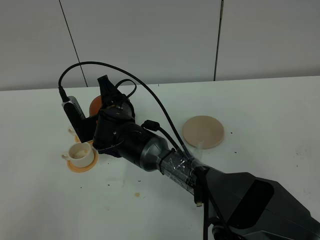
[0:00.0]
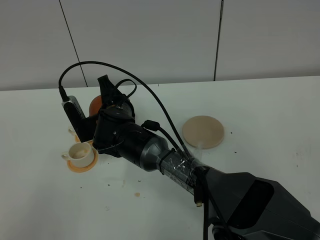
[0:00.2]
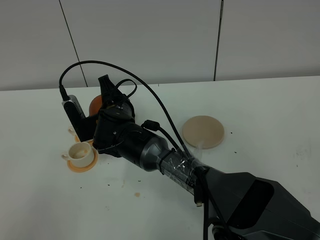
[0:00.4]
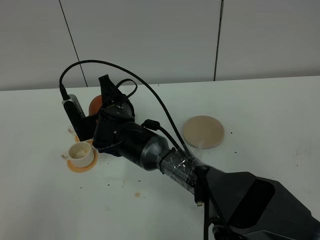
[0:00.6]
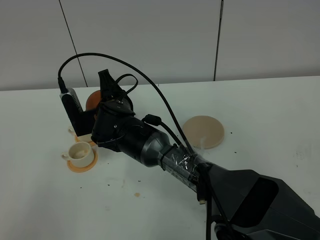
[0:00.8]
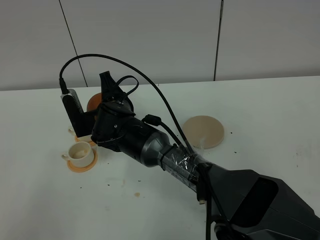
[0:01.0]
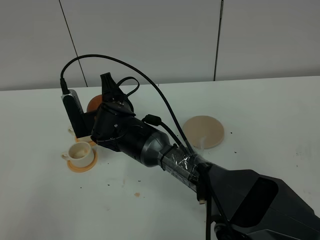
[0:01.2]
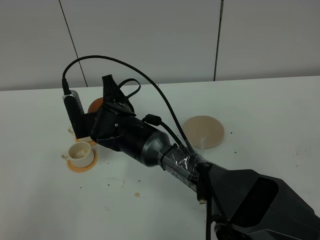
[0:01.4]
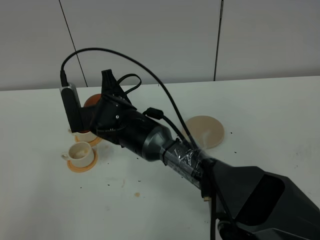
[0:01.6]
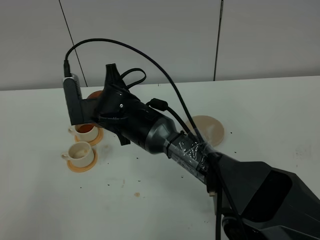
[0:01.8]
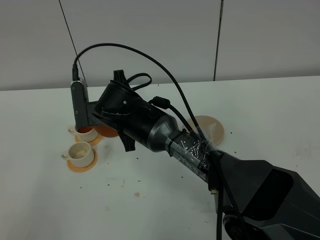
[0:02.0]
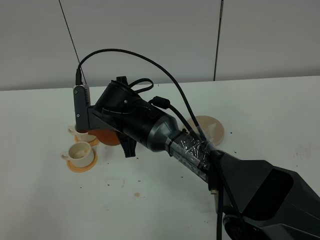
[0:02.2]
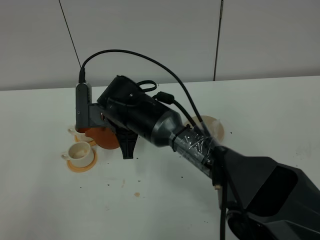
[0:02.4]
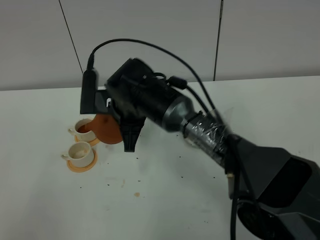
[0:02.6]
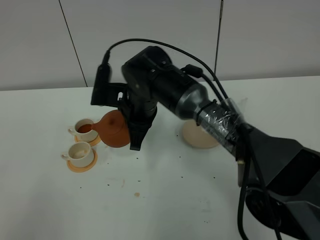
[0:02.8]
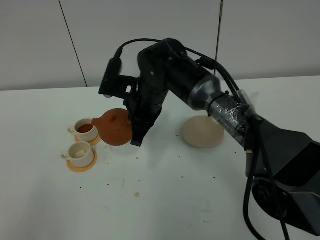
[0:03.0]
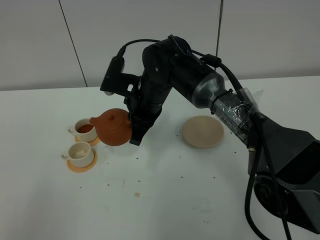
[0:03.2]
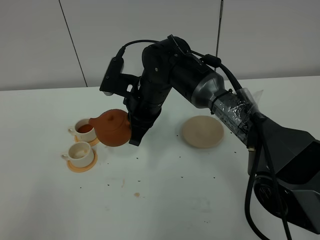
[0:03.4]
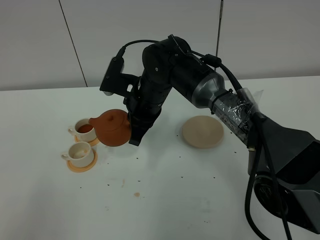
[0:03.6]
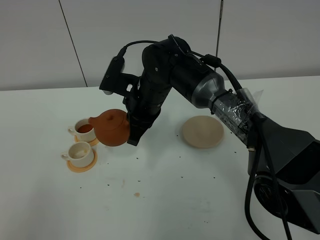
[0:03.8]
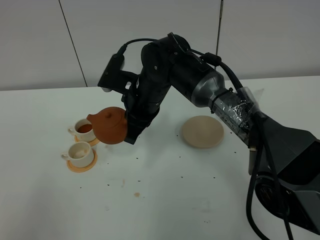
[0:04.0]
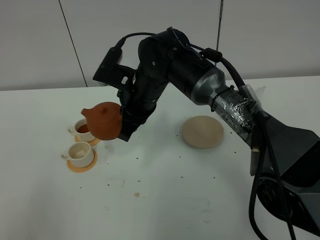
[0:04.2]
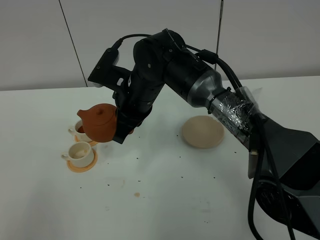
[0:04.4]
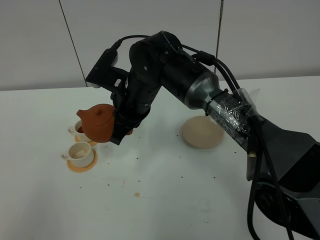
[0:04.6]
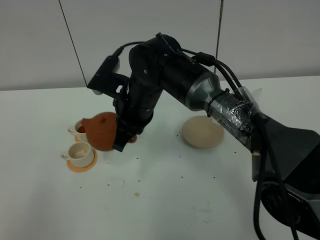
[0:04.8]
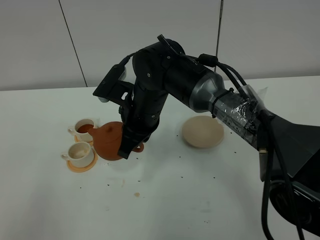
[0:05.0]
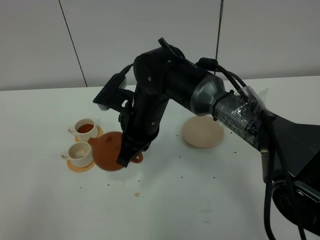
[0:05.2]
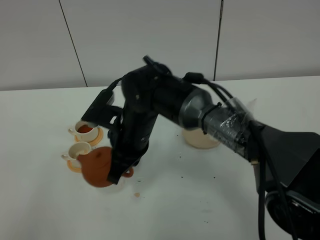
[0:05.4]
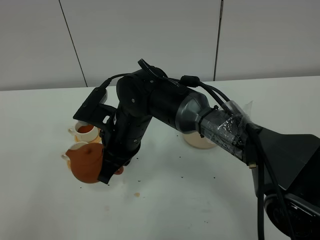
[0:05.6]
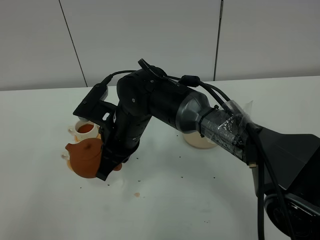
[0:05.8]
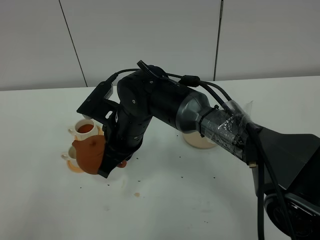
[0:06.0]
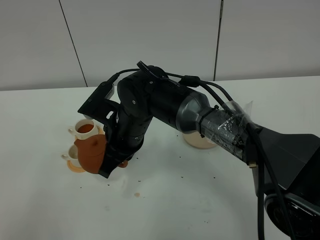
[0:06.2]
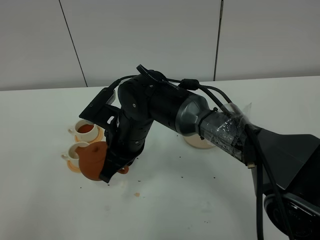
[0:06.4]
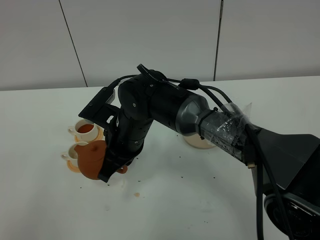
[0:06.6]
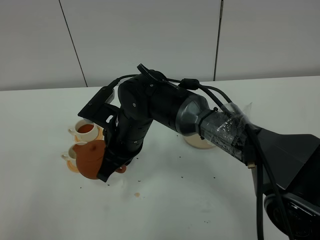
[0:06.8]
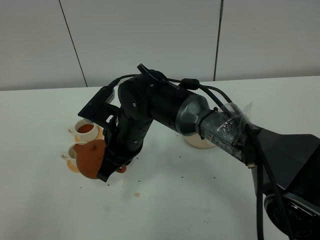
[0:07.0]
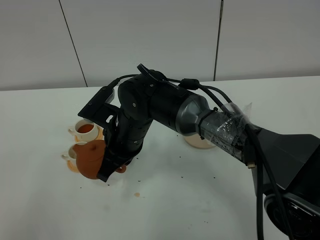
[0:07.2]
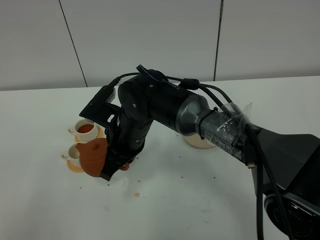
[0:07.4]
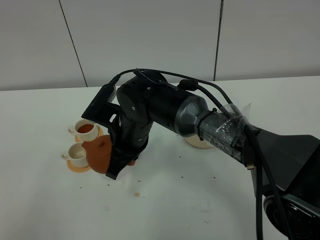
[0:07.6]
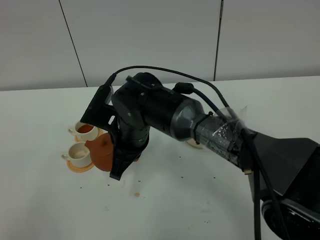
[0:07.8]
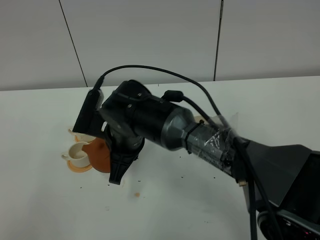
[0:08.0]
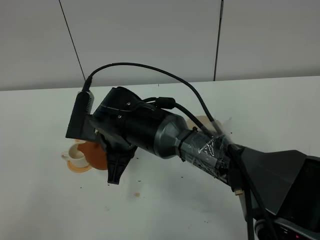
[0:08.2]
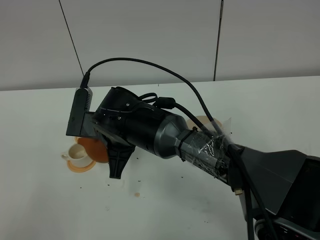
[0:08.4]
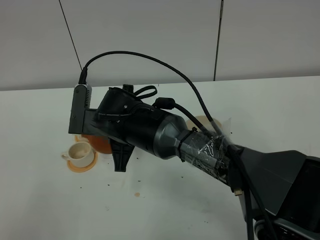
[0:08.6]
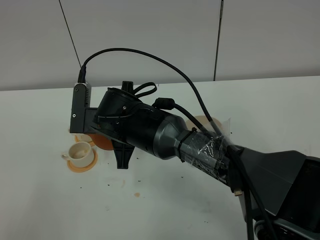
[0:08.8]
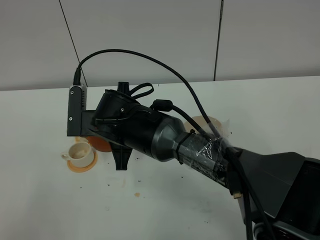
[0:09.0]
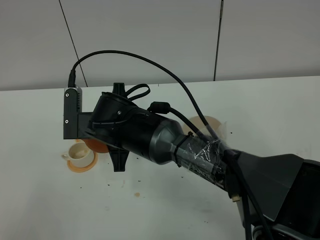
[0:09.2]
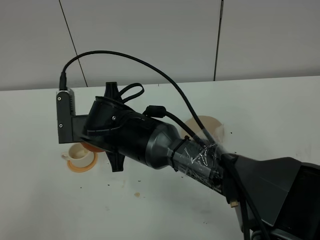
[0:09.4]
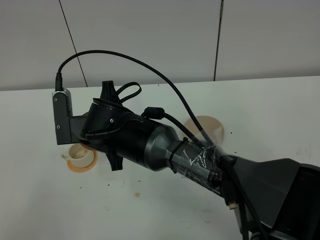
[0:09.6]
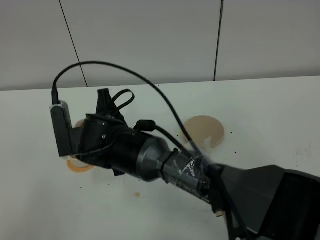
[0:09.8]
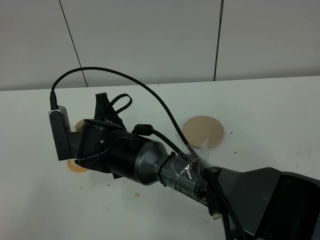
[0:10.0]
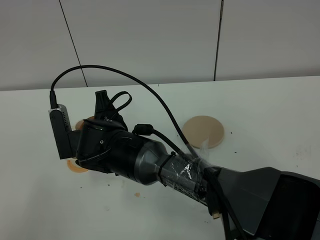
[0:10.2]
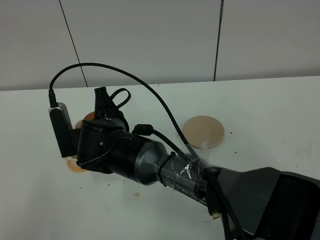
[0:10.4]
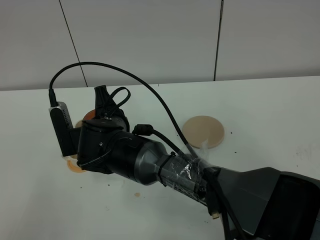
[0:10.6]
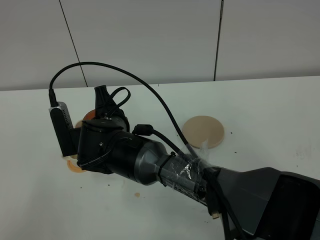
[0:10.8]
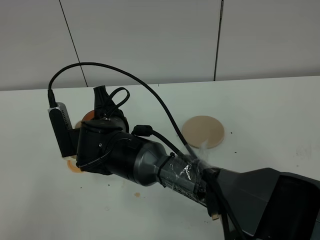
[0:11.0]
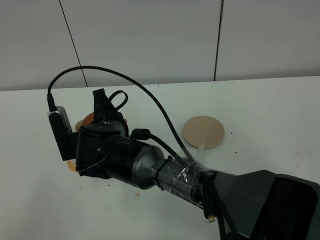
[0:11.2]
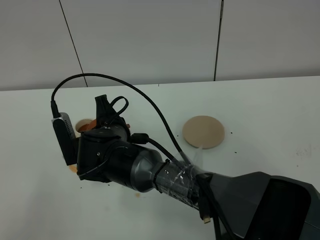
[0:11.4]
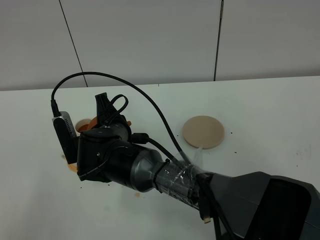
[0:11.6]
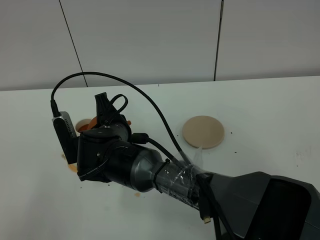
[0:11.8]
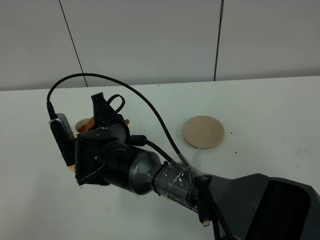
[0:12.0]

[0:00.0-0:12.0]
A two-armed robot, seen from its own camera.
Task of the whole recording: grasp the brown teapot and pour the tea into the two white teacups one by one, put the brown teapot back in its original place.
0:00.0 to 0:01.6: There are only small adjustments of the grippers.
0:01.6 to 0:03.0: The right gripper shifts approximately 5 cm to the right.
0:03.0 to 0:04.4: The grippers make only small movements.
0:04.4 to 0:06.0: The right gripper changes place by some 5 cm.
0:06.0 to 0:07.6: The grippers move only a little.
0:10.4 to 0:12.0: The grippers make only small movements.

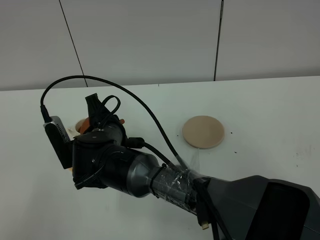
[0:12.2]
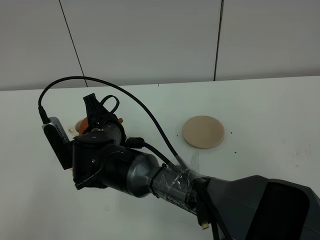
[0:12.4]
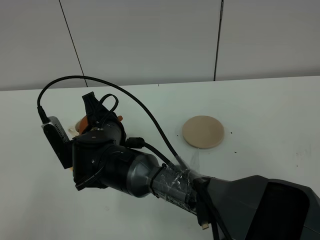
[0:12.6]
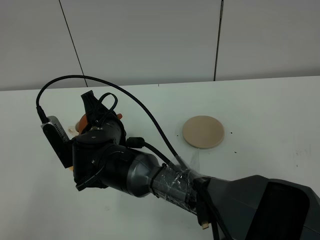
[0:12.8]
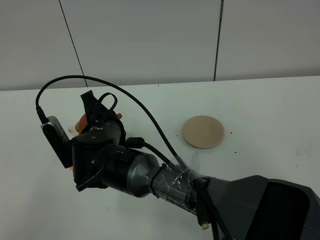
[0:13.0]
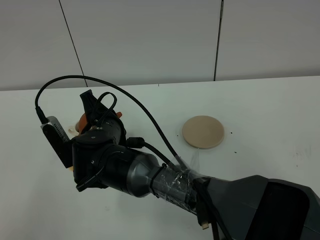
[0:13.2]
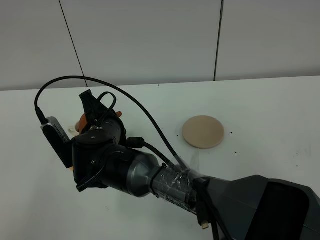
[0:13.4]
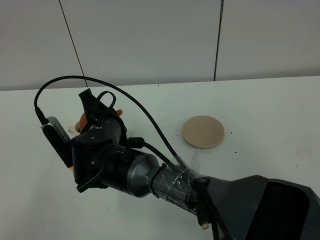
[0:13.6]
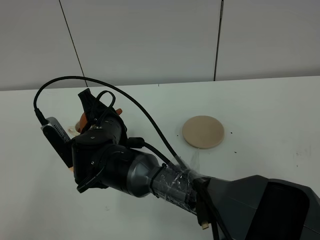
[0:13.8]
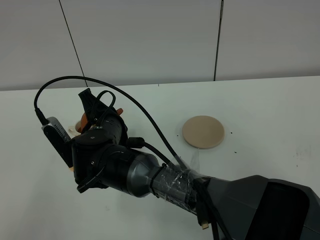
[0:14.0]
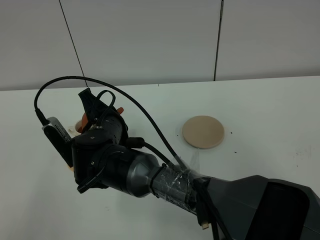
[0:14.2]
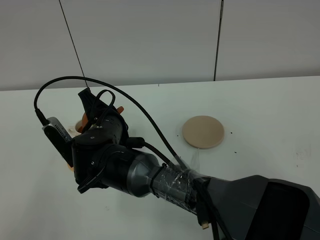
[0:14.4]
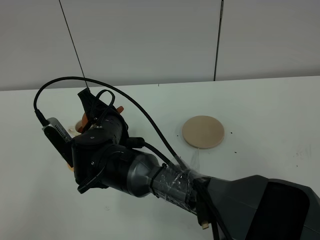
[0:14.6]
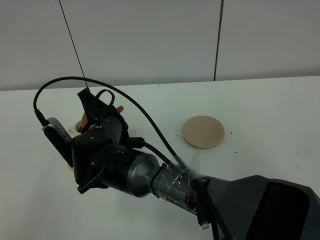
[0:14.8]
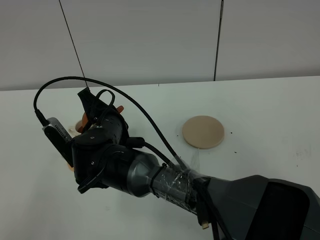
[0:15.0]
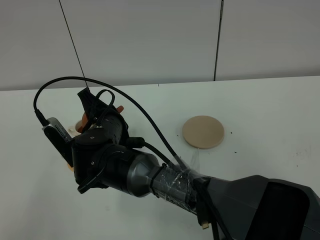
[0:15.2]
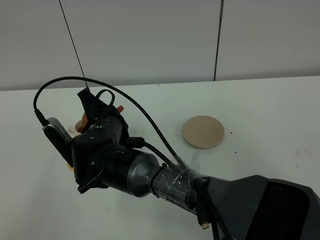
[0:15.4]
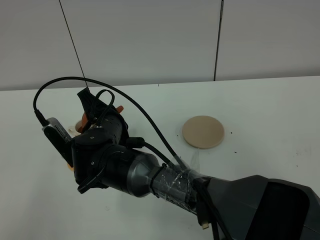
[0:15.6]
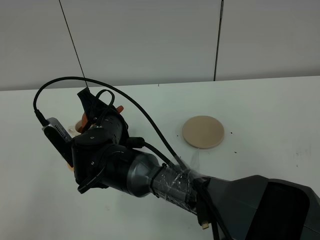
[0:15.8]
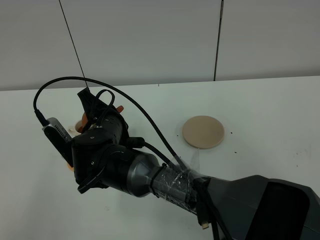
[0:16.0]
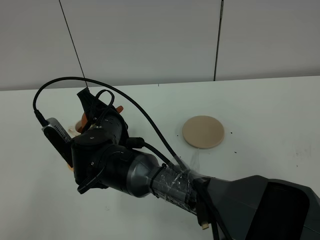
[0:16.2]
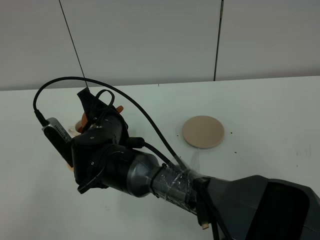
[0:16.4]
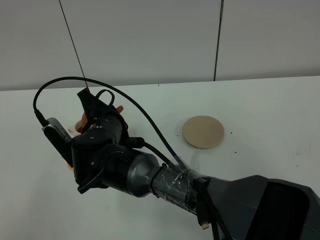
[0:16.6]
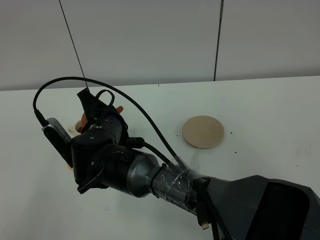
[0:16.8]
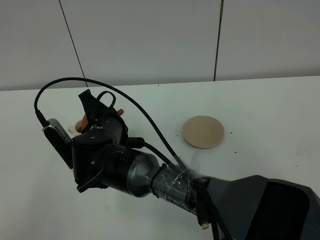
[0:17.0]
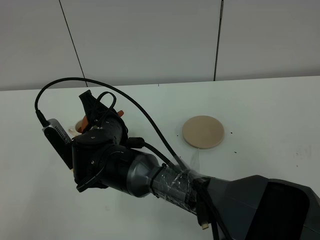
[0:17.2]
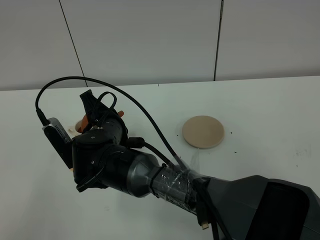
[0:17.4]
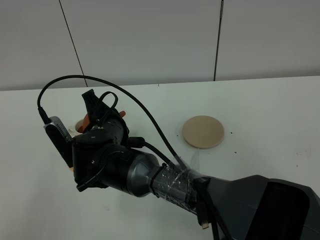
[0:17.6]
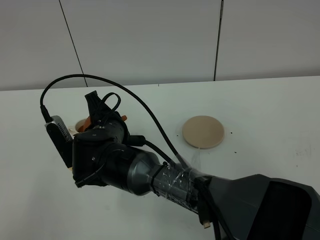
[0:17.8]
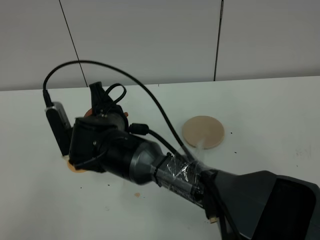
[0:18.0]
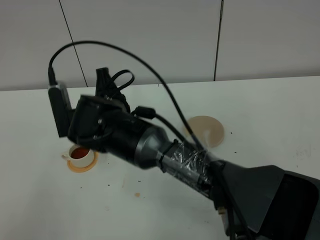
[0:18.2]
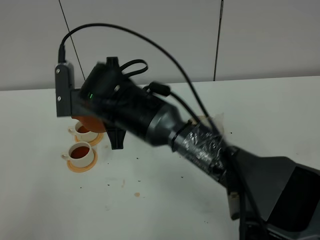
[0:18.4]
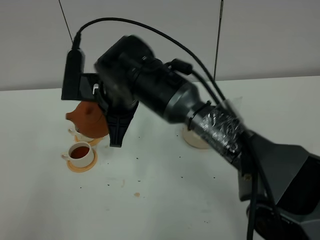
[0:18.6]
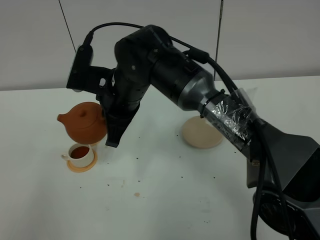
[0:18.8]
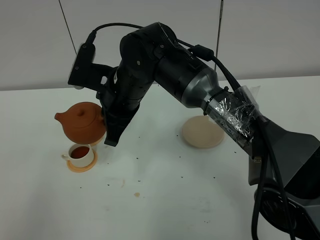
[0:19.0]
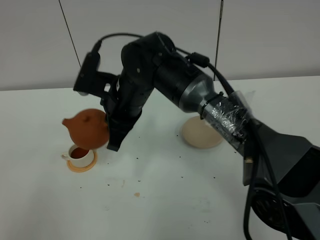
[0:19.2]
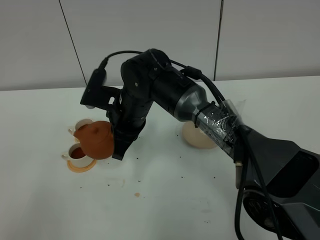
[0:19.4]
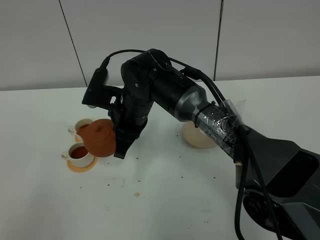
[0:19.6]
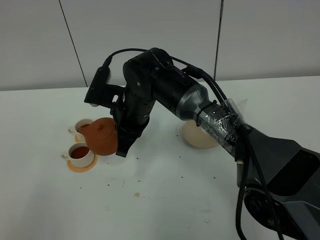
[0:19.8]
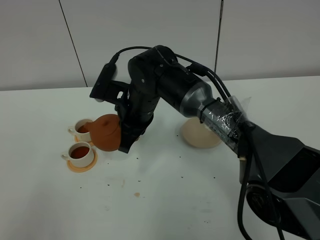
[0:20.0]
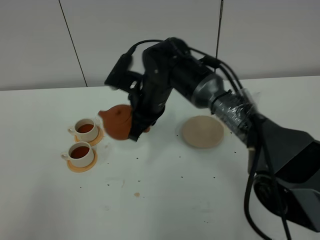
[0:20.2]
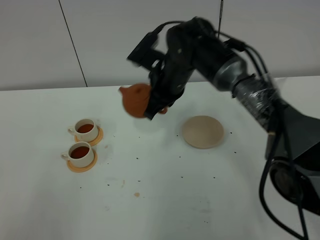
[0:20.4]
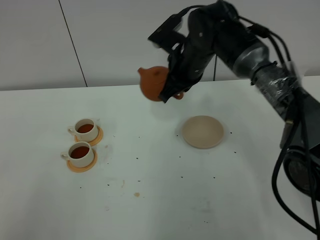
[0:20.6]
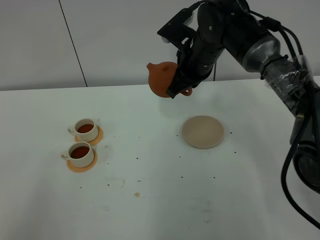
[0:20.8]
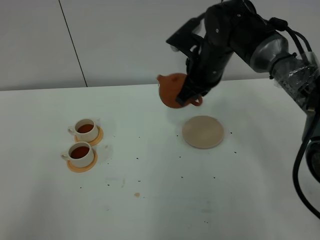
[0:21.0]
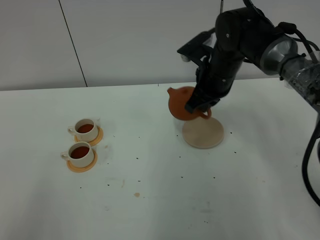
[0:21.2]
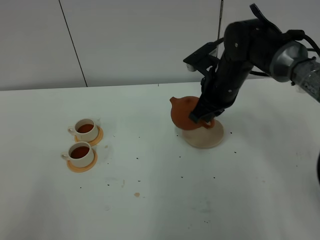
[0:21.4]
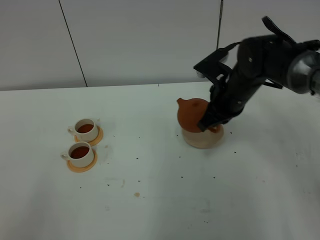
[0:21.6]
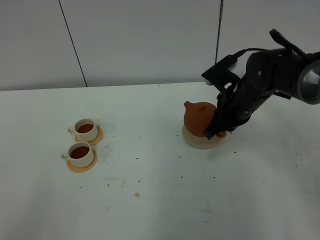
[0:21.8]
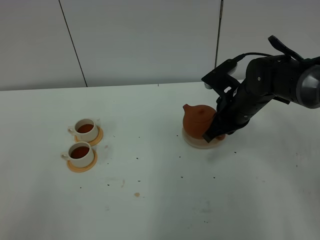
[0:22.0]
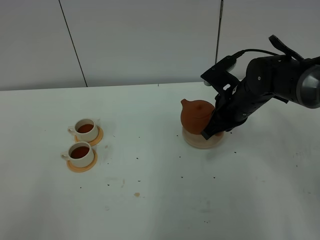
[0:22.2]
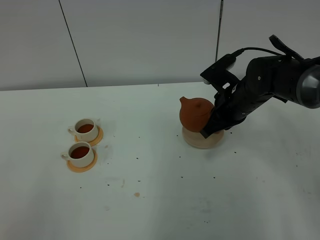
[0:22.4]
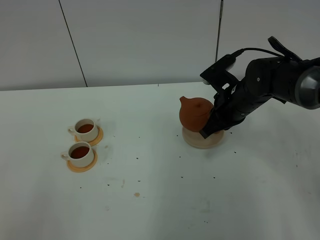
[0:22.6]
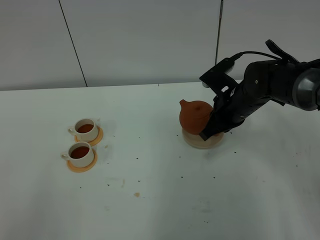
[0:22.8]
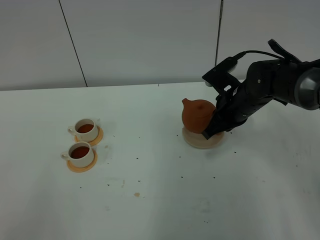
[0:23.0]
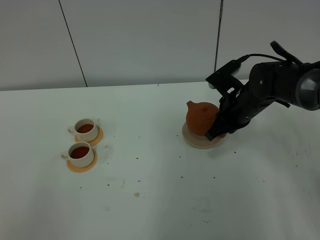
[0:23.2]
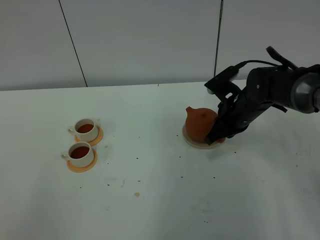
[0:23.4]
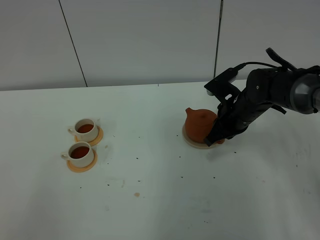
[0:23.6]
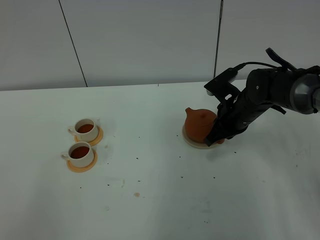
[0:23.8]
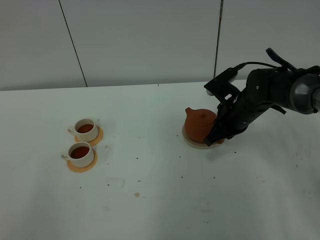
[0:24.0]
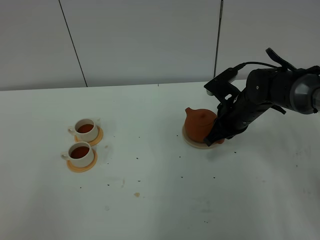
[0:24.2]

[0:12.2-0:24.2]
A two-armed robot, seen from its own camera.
Task of the whole recording: grasp the brown teapot and pour the tea into the two white teacups one by one, put the brown teapot back in its original place.
Step, 0:12.2 to 0:18.8: Pour tea into the teacup with the right gripper.
0:12.2 to 0:13.8: There are only small adjustments of the grippers.
0:13.8 to 0:16.6: The two grippers keep their place.
0:16.6 to 0:18.2: The right gripper ends up about 5 cm from where it was.
0:18.2 to 0:19.8: The right gripper moves forward, roughly 5 cm.
0:19.8 to 0:21.2: The right gripper travels to the right by approximately 15 cm.
0:21.2 to 0:22.6: The right gripper shifts by about 5 cm.
0:22.6 to 0:24.2: There are only small adjustments of the grippers.
